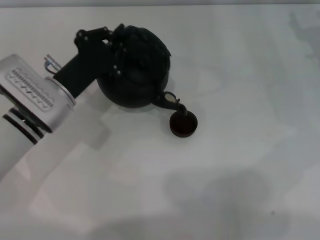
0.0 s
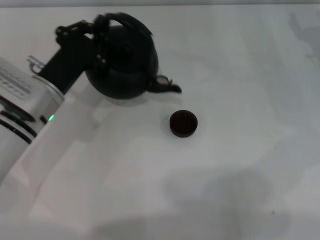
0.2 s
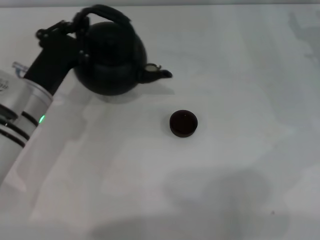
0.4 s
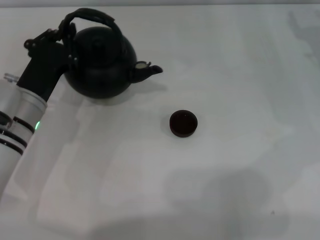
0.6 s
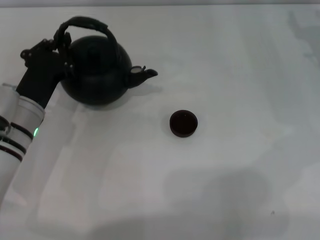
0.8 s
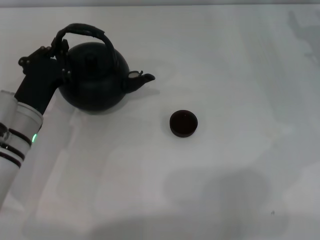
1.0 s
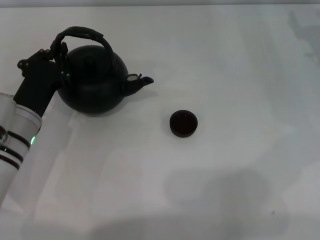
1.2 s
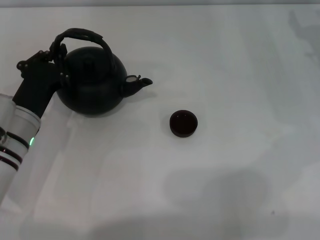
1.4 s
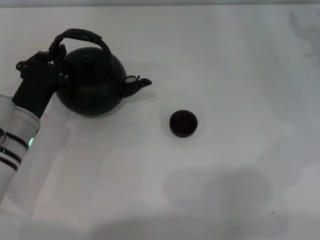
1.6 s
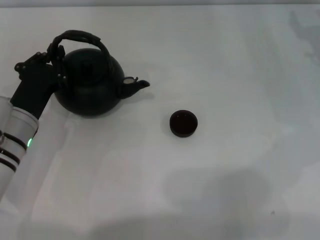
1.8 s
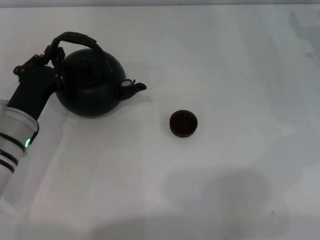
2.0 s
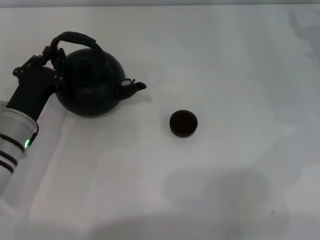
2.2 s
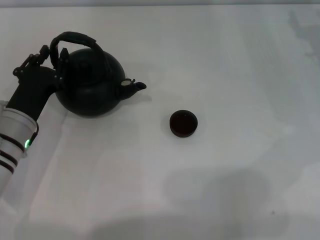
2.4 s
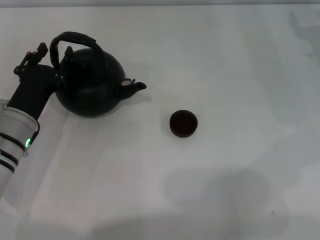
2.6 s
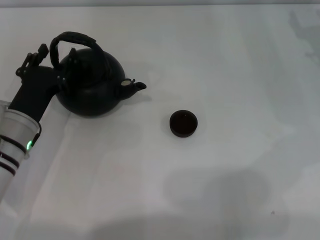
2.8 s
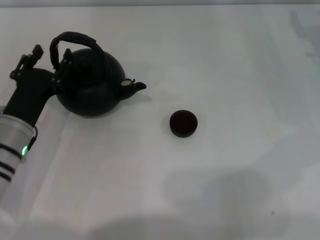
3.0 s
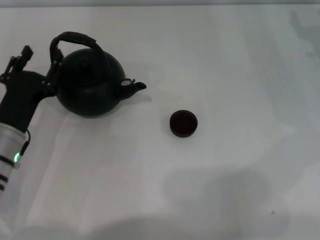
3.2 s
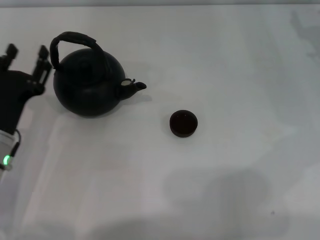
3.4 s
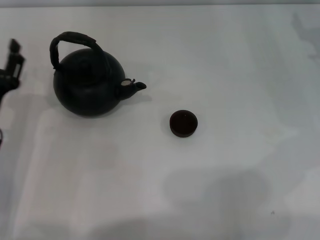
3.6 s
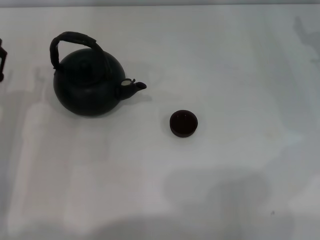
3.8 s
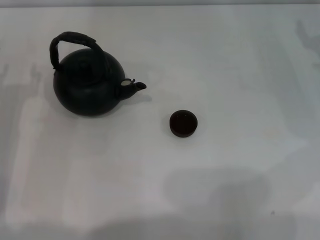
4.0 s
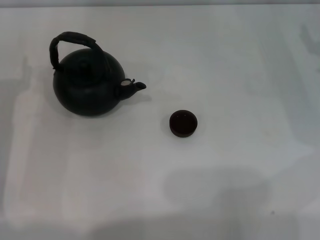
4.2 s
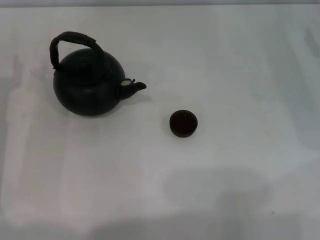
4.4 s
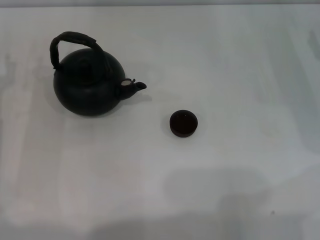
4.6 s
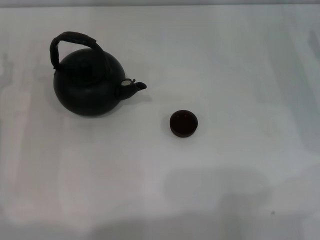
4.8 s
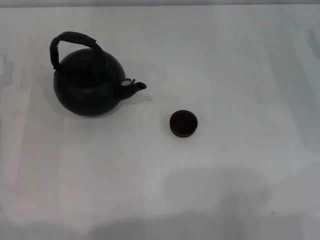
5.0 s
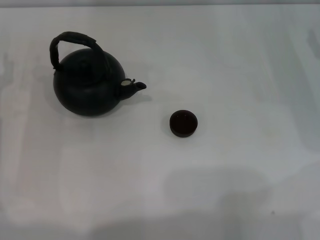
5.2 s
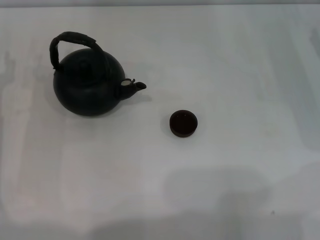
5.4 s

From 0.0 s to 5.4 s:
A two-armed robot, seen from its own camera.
Task of the whole recording: Grasp the handle of the teapot with one hand and pour tea into the teacup.
Step, from 0.4 s to 3.2 s: Put down the teapot with the left gripper.
From 0.0 s to 1.4 s: The left gripper ends up roughly 5 cm from where it was.
From 1.4 s to 2.8 s: The left gripper opens its fingers.
From 2.8 s to 4.0 s: The left gripper heads to the left, covering some 5 cm.

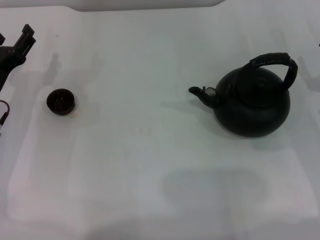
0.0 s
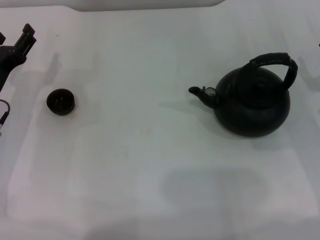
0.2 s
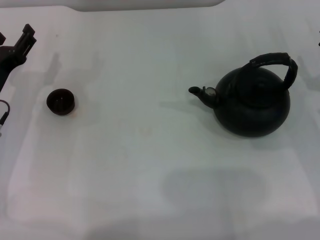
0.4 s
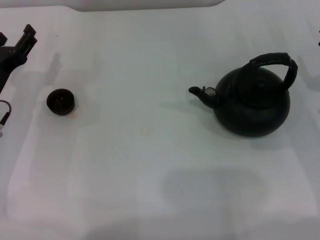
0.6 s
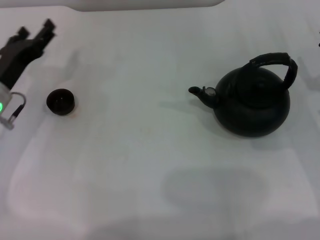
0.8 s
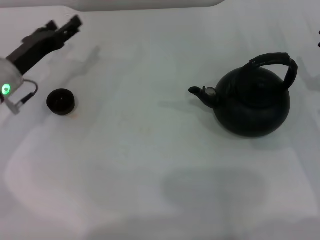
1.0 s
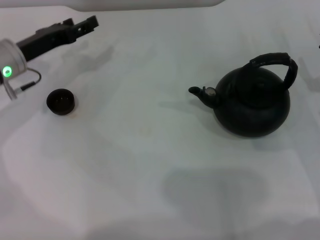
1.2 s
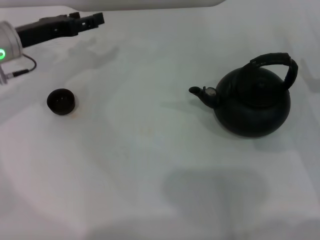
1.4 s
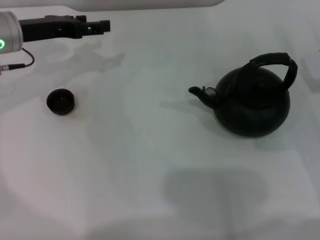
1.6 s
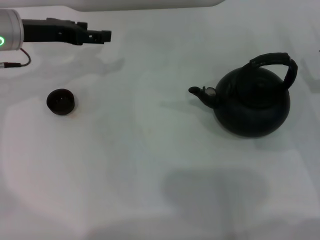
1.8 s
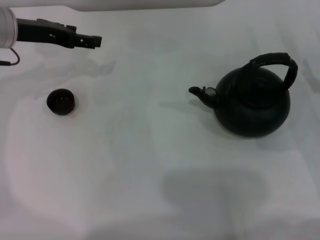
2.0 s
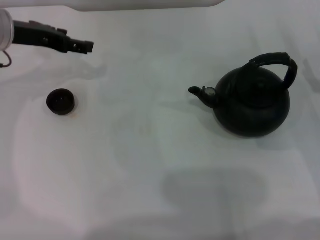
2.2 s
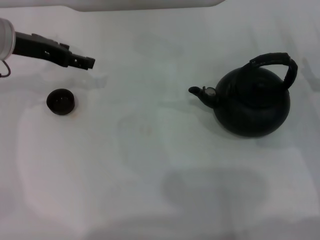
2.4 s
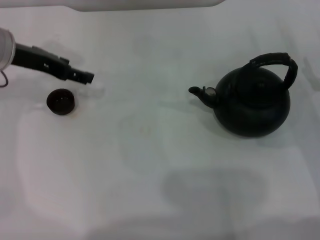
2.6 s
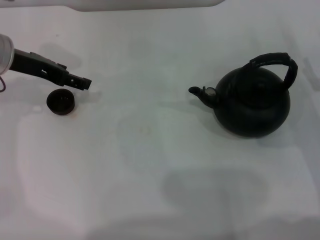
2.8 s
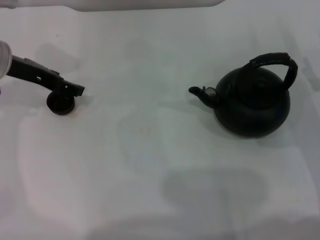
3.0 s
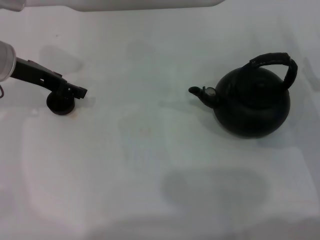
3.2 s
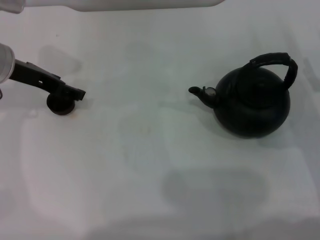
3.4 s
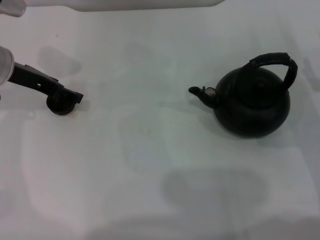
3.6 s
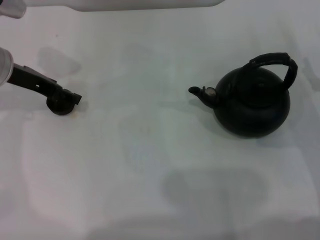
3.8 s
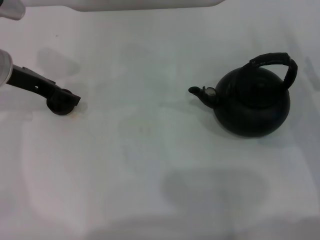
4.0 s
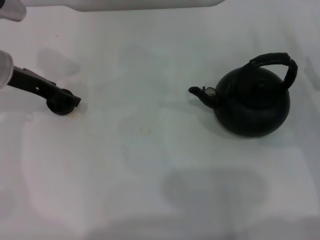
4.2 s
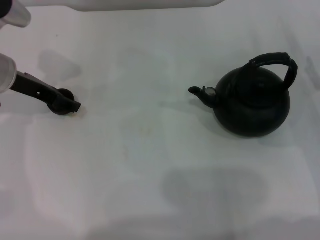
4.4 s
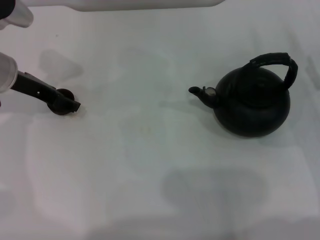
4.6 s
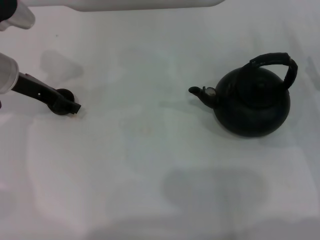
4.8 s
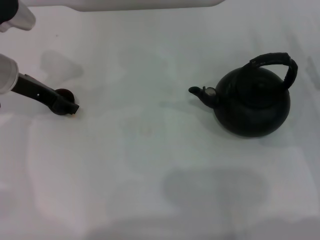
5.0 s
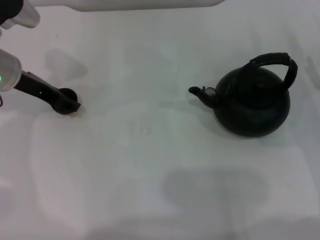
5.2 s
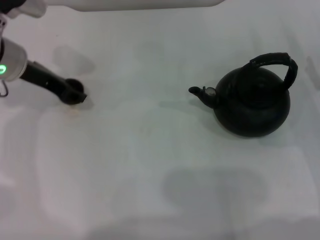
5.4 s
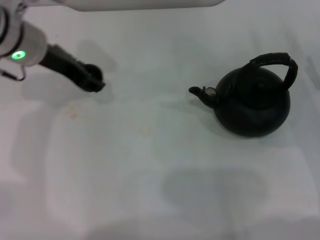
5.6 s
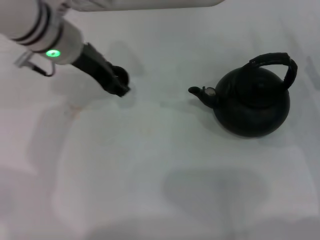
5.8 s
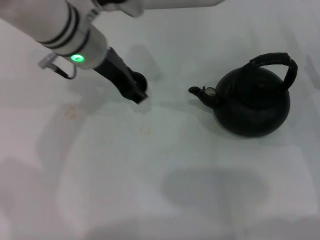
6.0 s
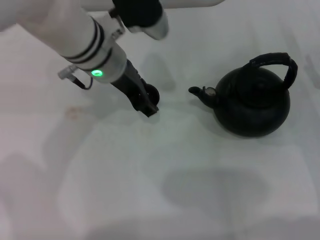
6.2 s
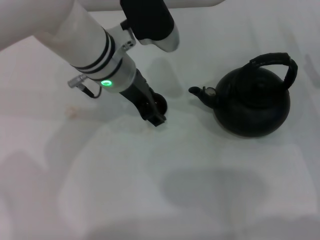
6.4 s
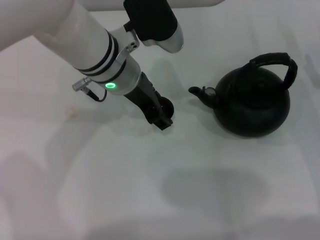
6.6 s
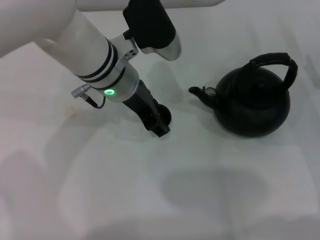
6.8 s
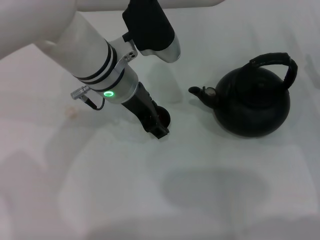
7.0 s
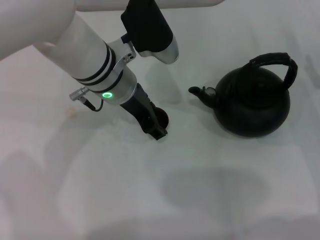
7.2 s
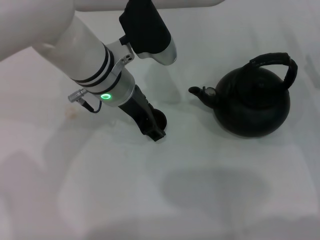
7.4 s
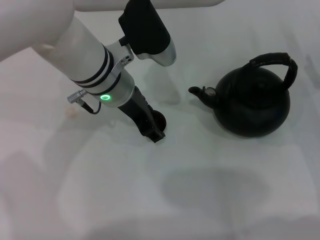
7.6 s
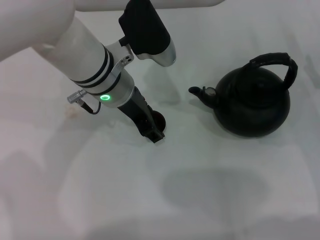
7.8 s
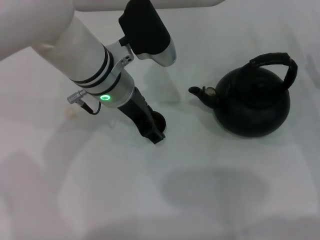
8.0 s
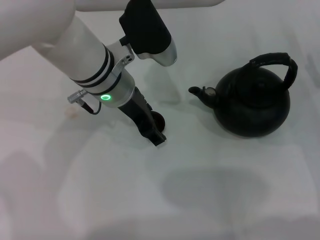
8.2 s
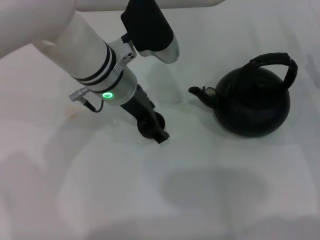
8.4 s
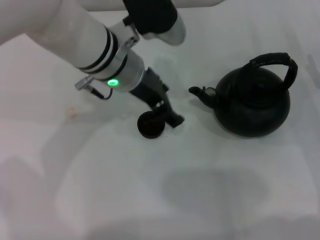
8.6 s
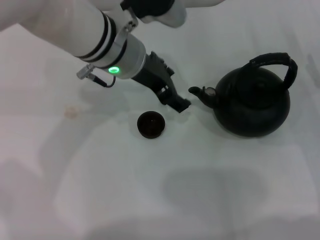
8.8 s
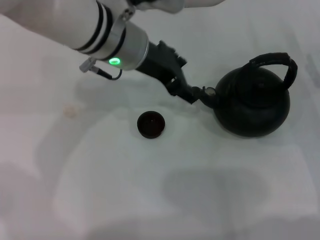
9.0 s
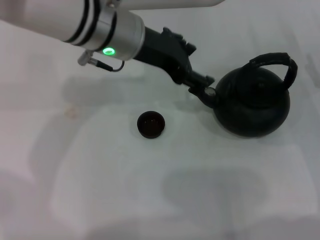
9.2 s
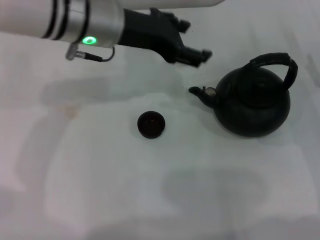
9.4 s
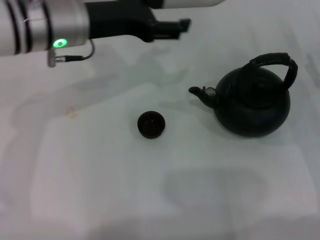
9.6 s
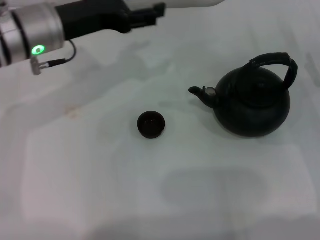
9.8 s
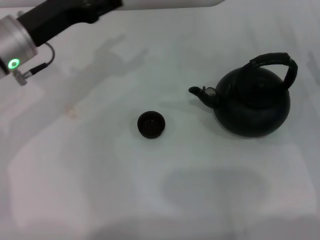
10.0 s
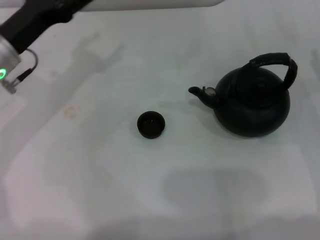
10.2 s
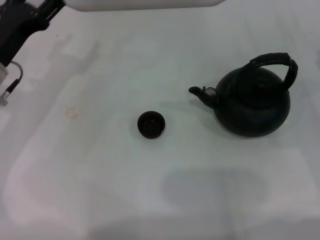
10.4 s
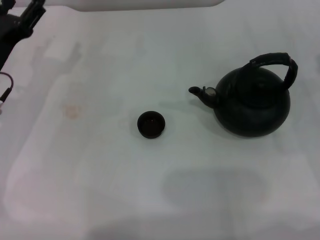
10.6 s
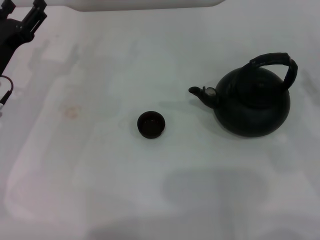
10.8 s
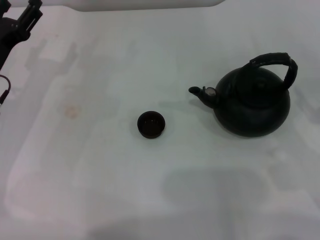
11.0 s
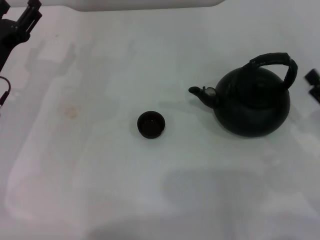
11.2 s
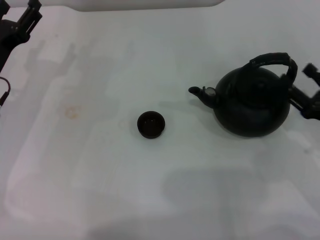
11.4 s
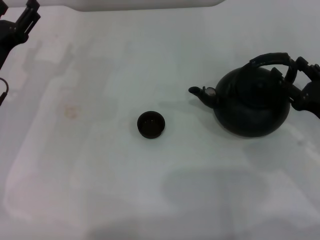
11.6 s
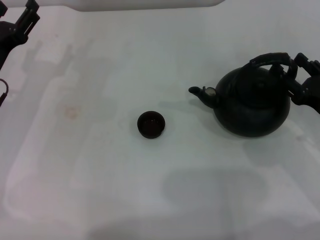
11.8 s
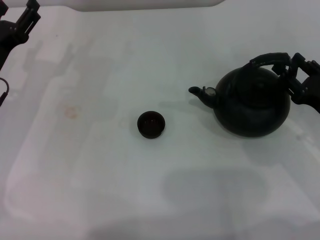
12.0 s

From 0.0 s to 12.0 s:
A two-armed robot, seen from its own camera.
Task of the whole recording: Grasp the handle of the teapot with one hand and pour tea into the teacup.
Step, from 0.0 s to 5.4 s: Pick up the teacup with the left gripper.
Step, from 5.6 s to 9.2 s: Place the teacup in the center of view with the left gripper.
From 0.0 s to 1.6 s: The left gripper is displaced forward and upward by about 15 cm.
From 3.0 s to 4.4 s: There are only small adjustments of the grippers.
From 4.4 s to 6.0 s: The left gripper is displaced to the right by about 15 cm, and closes its fingers.
From 6.0 s to 7.6 s: The left gripper shifts by about 5 cm.
From 7.6 s to 9.0 s: The left gripper heads upward, covering roughly 5 cm, and opens.
From 9.0 s to 10.4 s: The left gripper goes some 20 cm to the left and downward.
From 10.4 s to 12.0 s: The right gripper shifts by roughly 5 cm.

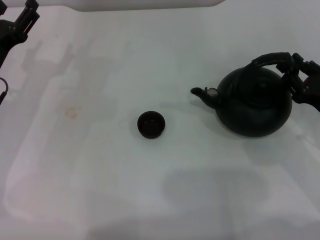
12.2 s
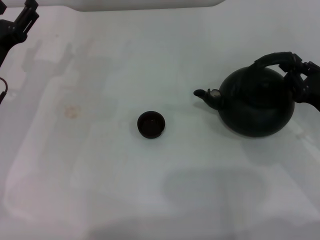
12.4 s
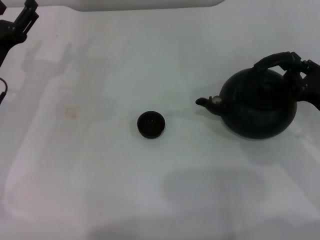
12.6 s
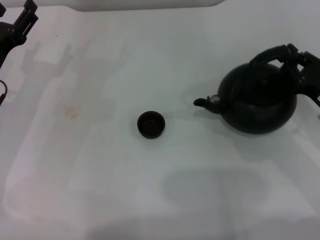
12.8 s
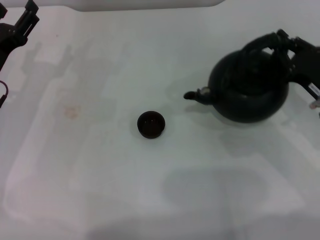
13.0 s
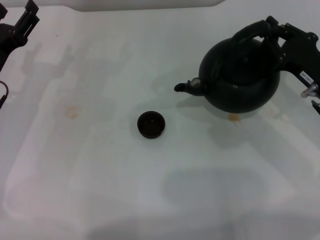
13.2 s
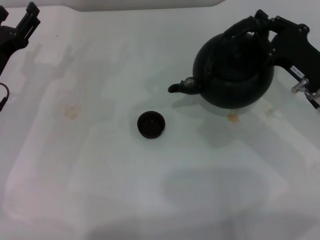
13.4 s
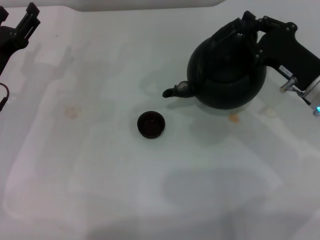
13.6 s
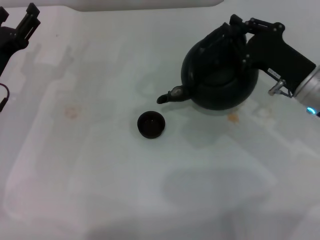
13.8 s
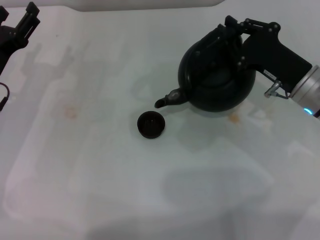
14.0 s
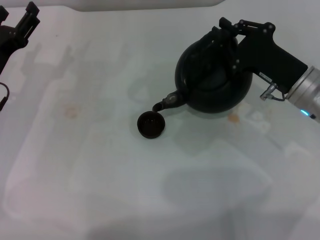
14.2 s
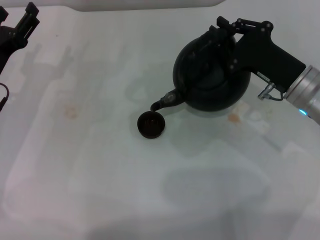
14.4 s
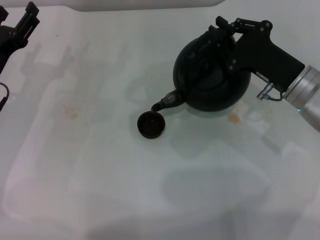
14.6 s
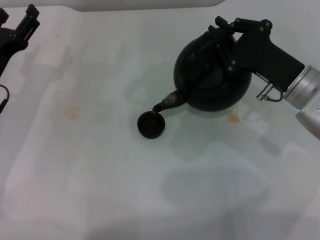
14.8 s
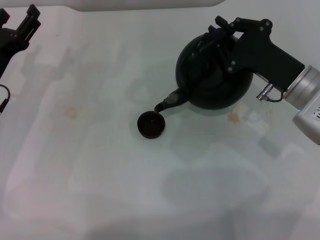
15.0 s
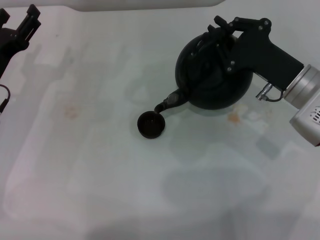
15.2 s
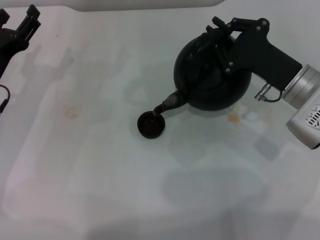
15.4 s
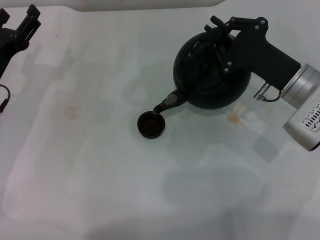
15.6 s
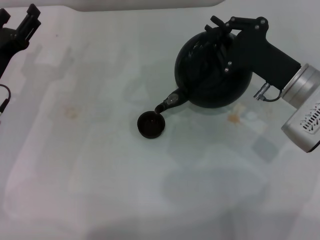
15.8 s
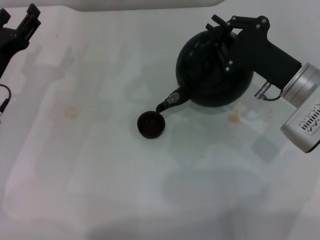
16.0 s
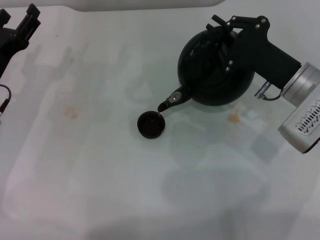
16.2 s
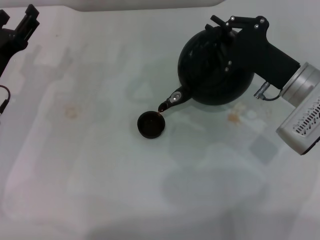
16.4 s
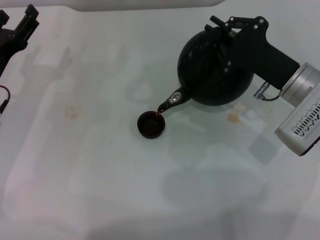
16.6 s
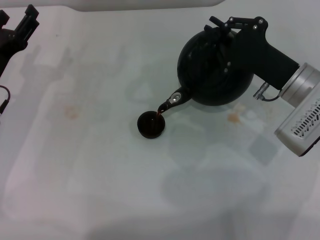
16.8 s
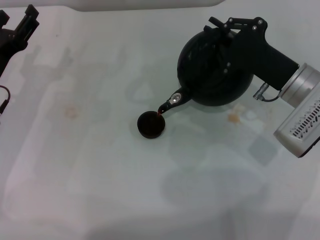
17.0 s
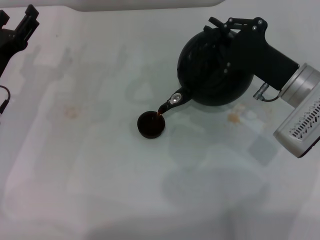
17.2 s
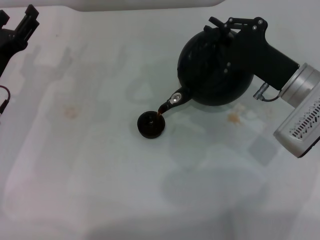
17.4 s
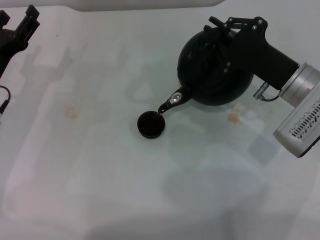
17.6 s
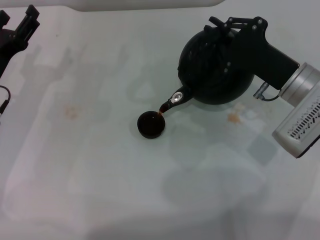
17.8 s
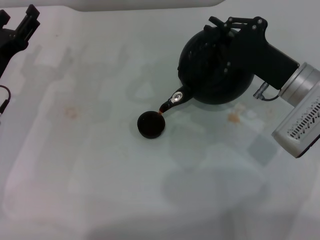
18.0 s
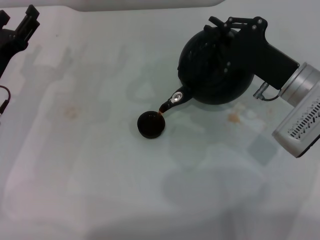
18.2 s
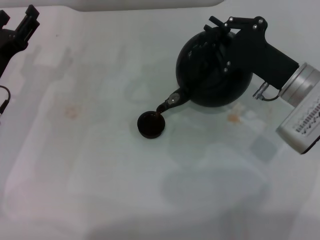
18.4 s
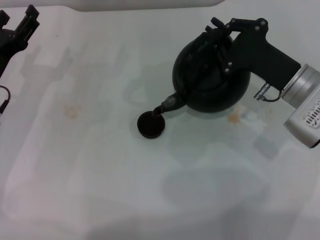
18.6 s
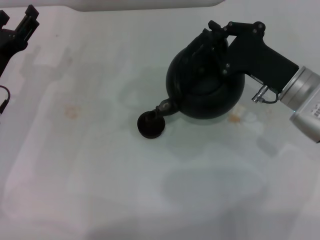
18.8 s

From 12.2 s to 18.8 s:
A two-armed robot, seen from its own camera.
Task of the whole recording: Grasp the handle of the teapot with one hand and pour tea into the teacup.
From 12.2 s to 13.8 s: The right gripper goes approximately 10 cm to the left and forward, and closes up.
From 15.4 s to 17.2 s: The grippers move only a little.
